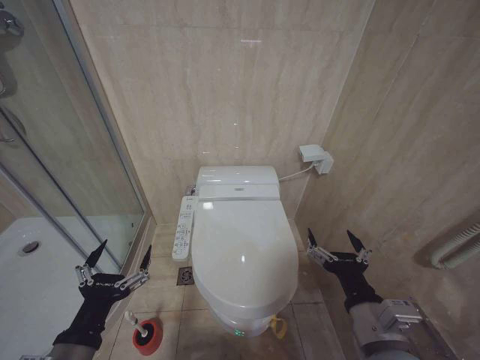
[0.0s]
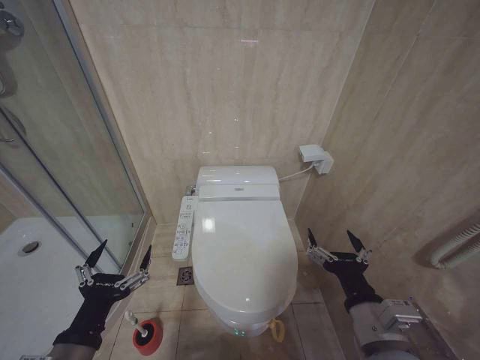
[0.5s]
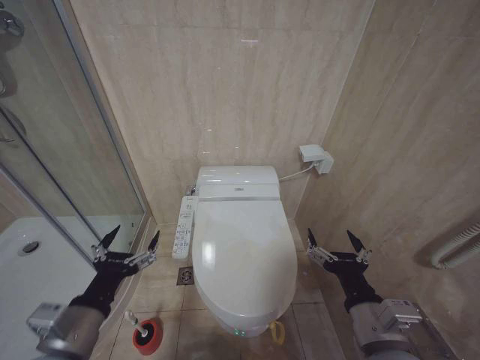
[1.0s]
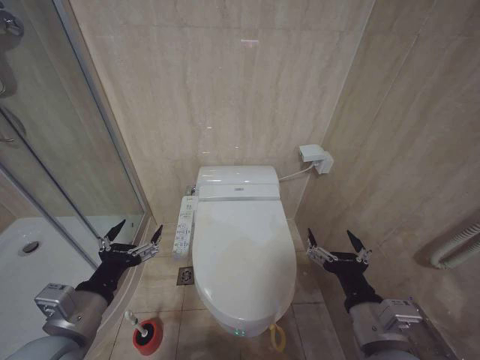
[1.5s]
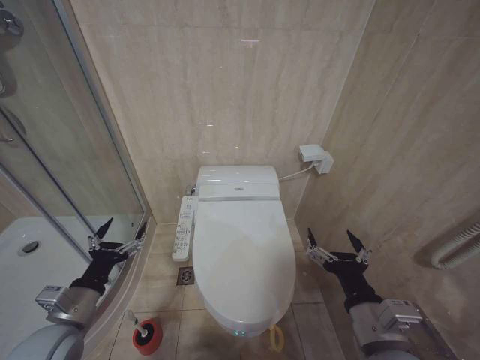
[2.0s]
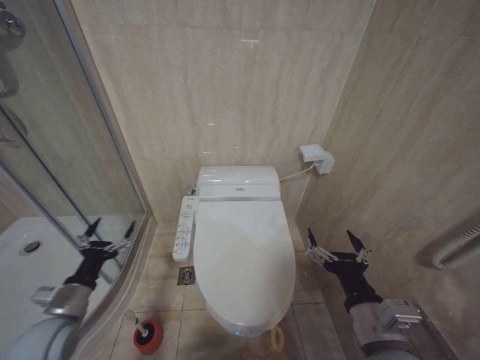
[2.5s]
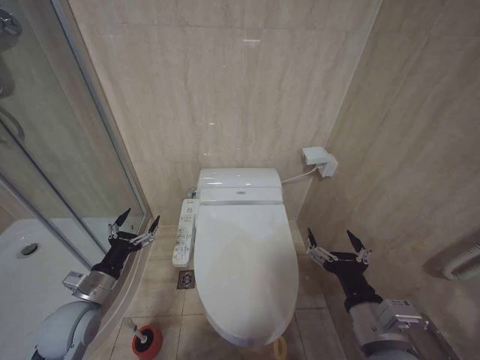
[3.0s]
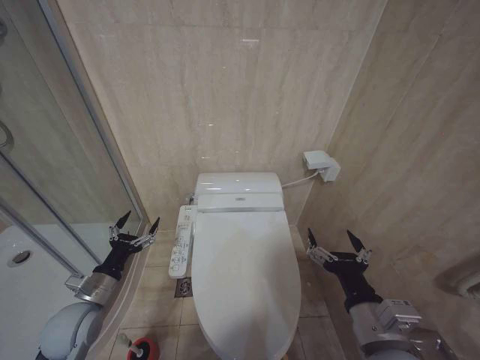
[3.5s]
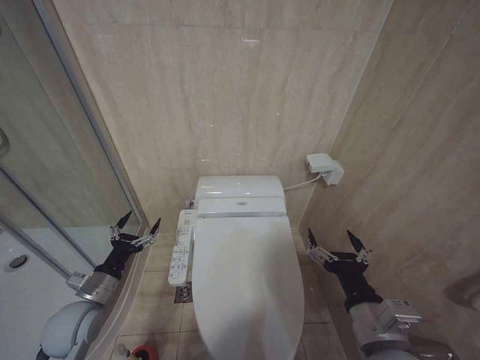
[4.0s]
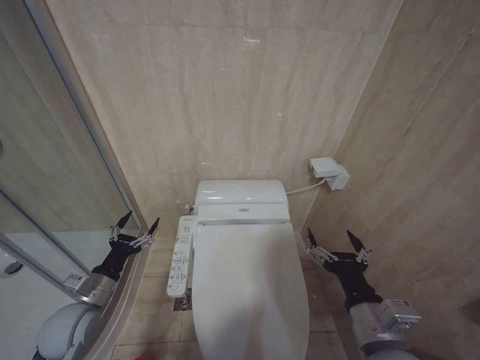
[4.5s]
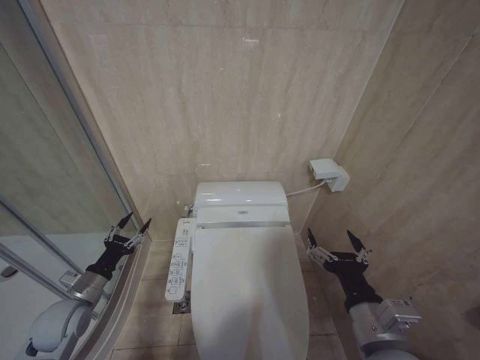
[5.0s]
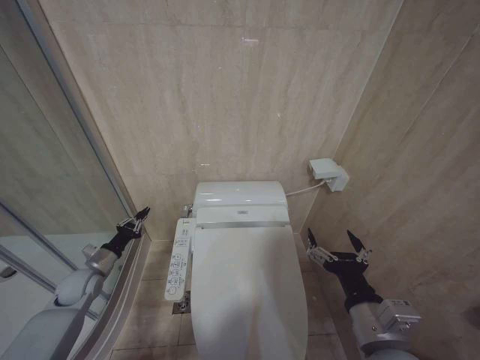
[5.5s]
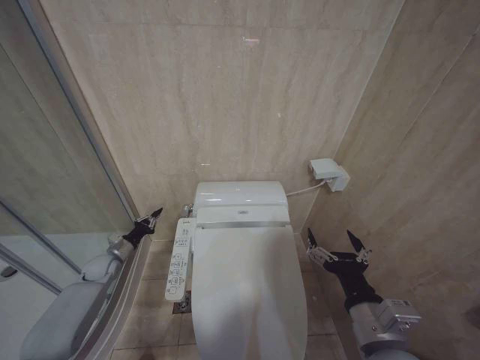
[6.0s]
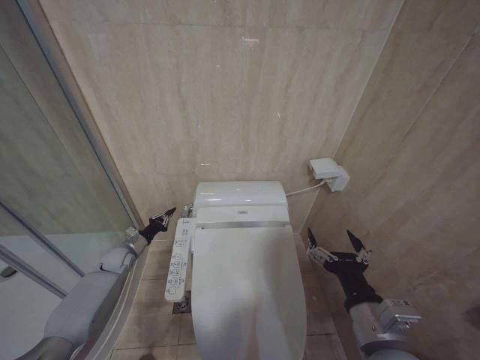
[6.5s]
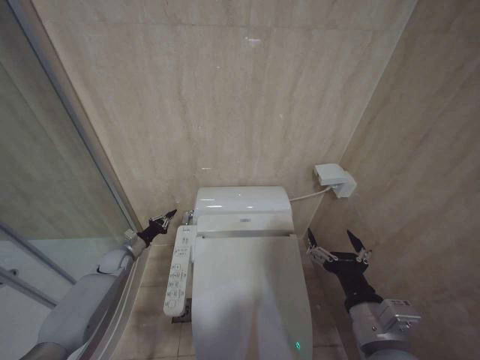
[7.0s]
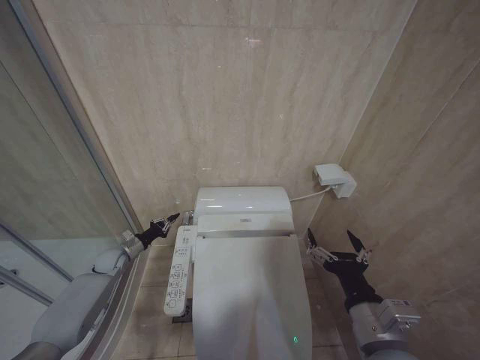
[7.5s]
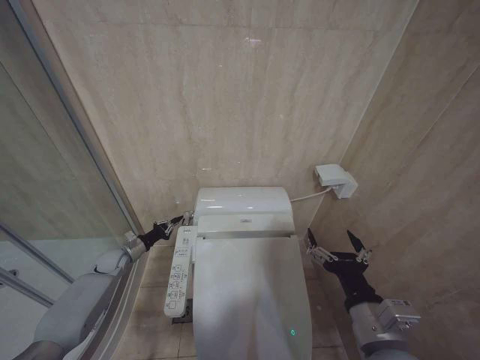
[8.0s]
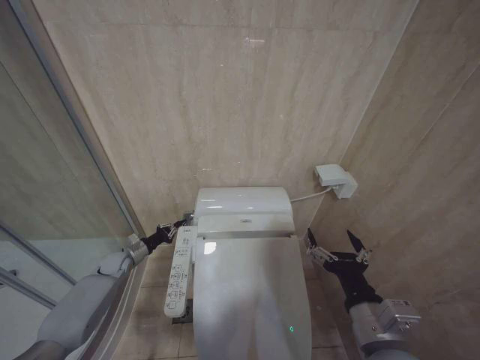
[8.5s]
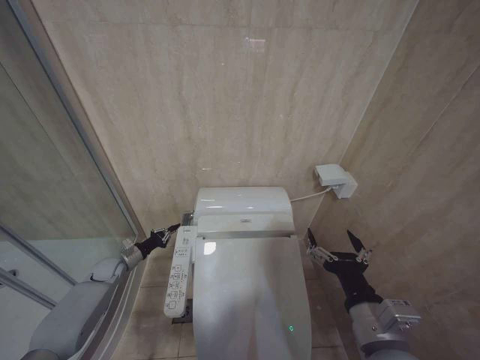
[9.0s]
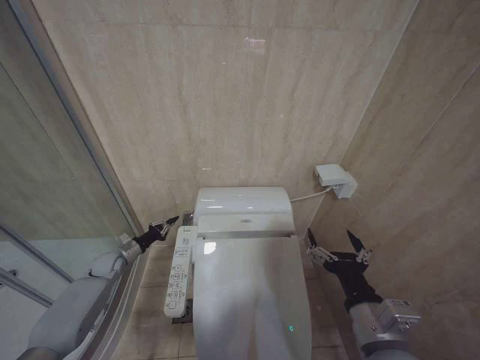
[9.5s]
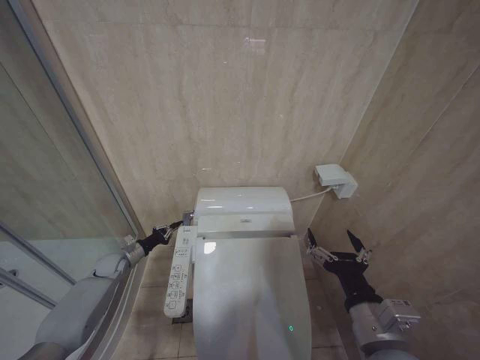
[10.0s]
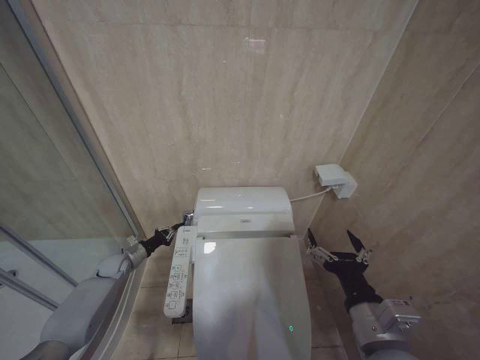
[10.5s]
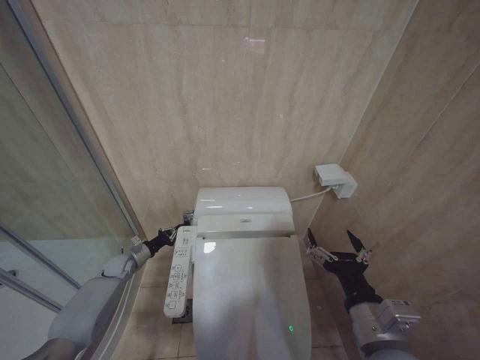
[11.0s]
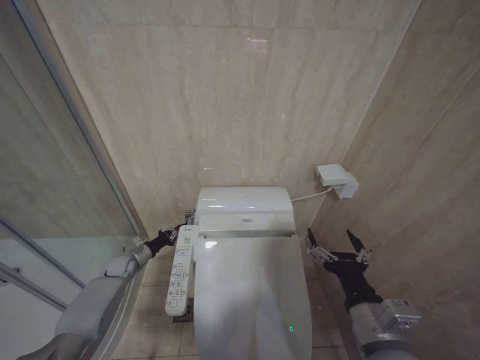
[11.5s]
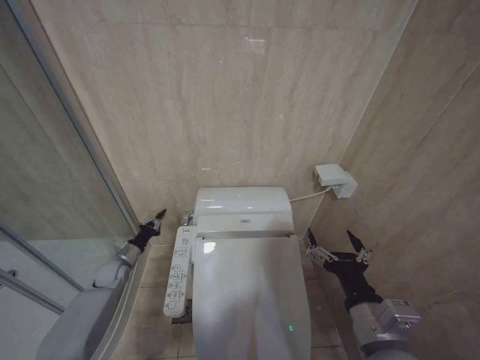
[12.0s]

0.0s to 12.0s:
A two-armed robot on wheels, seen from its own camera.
Task of the whole recording: Open the toilet lid, clean the toilet bowl with a toilet brush, close the toilet lid, and flush.
0.0s to 2.0s: The left gripper moves forward and to the left, about 10 cm.
2.0s to 4.0s: The left gripper travels forward and downward by some 10 cm.
4.0s to 6.0s: The left gripper is displaced forward, downward and to the left by approximately 20 cm, and closes its fingers.
6.0s to 8.0s: The grippers stay close to where they were, moving slightly.
10.0s to 12.0s: The grippers stay close to where they were, moving slightly.

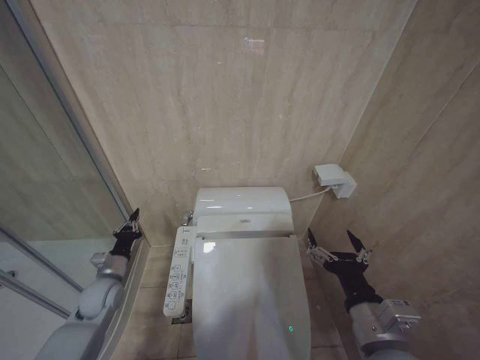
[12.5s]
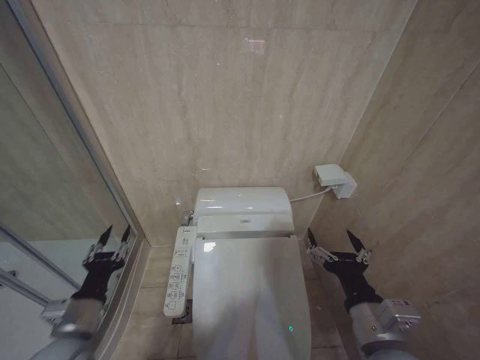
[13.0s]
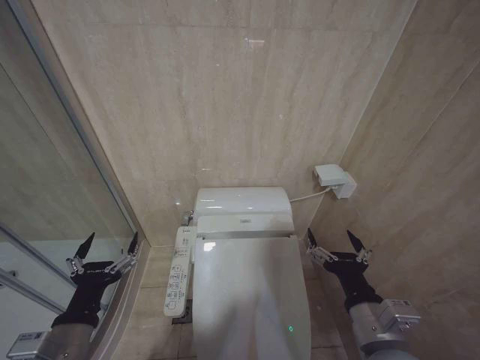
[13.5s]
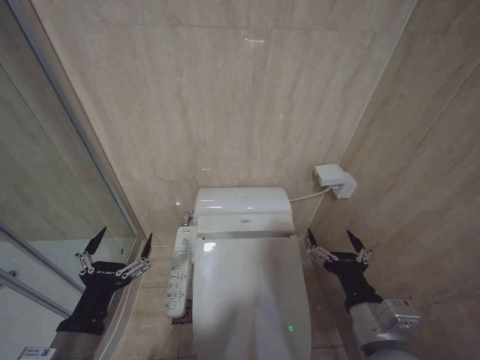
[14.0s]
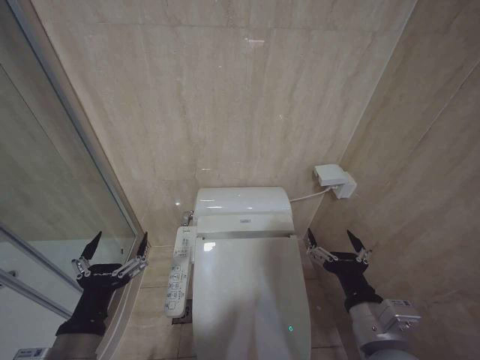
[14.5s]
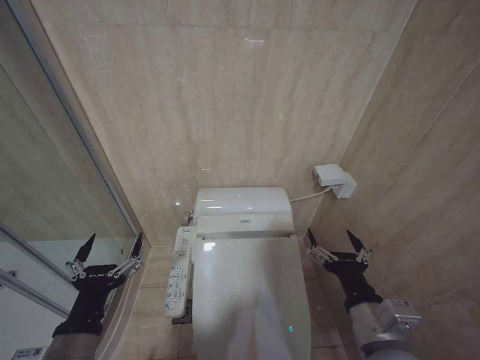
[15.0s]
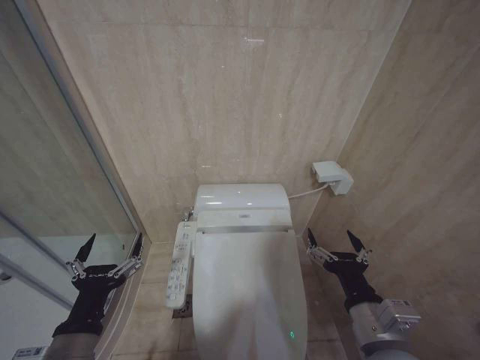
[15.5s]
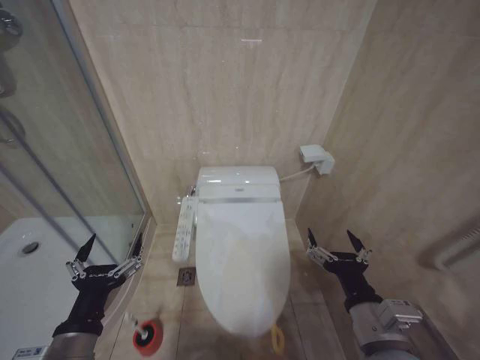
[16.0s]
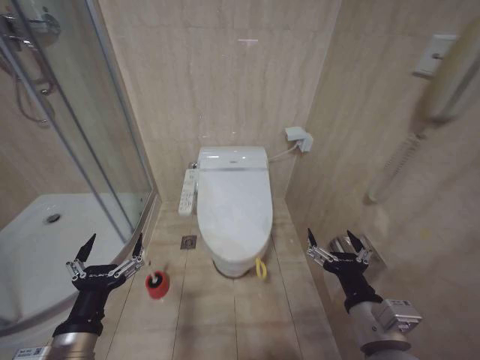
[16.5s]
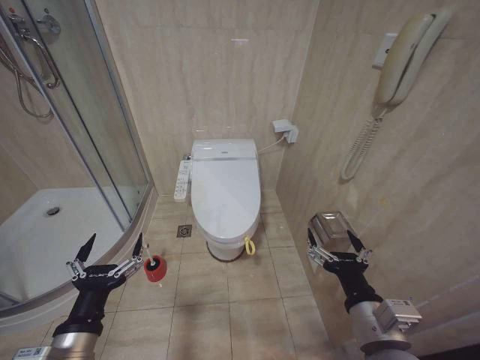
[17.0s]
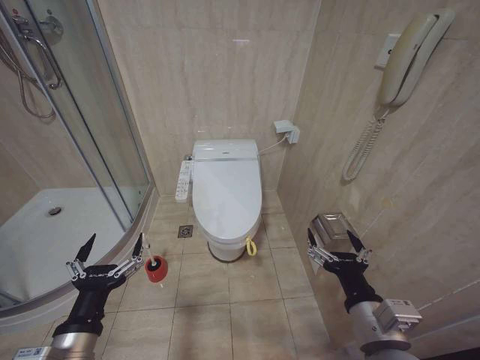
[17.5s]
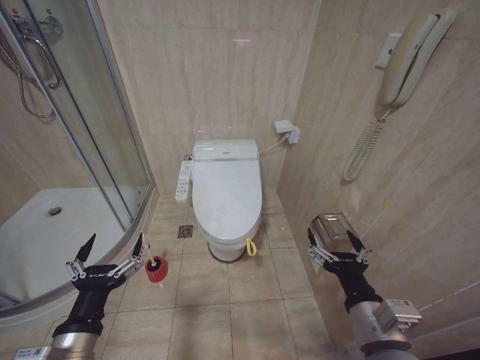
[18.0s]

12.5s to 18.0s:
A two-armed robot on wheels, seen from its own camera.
Task of the whole recording: Open the toilet lid, clean the toilet bowl with a toilet brush, close the toilet lid, and flush.
12.5s to 14.5s: The left gripper travels backward and upward by about 30 cm, and opens.
14.5s to 16.0s: The two grippers keep their place.
